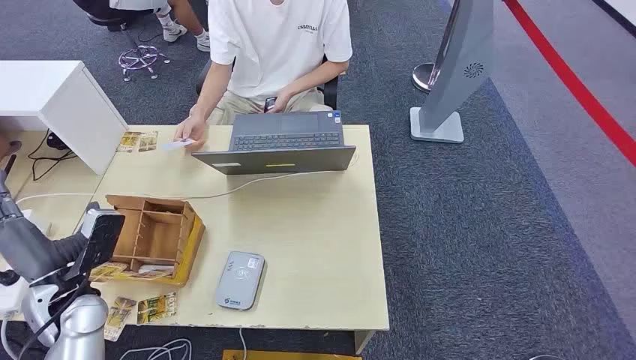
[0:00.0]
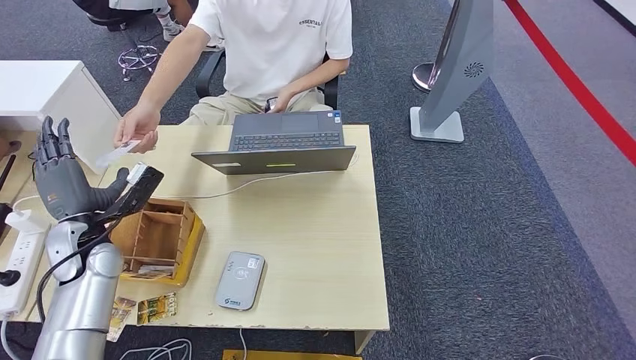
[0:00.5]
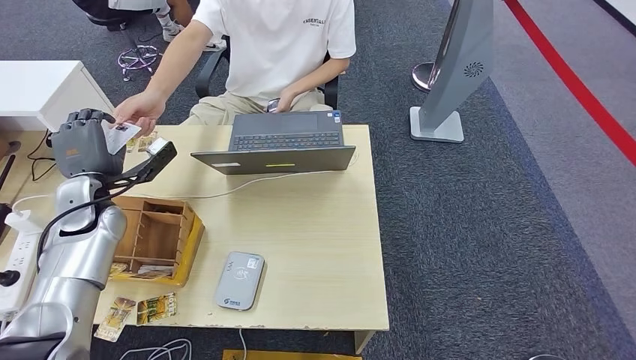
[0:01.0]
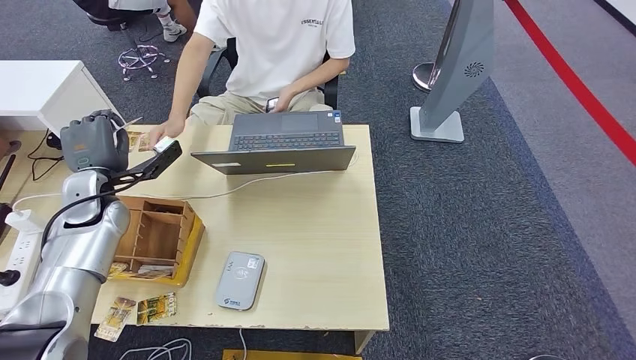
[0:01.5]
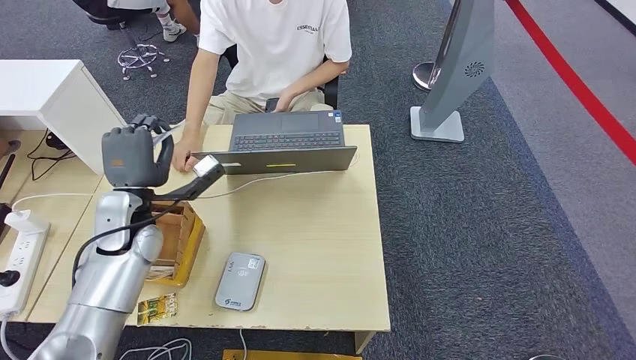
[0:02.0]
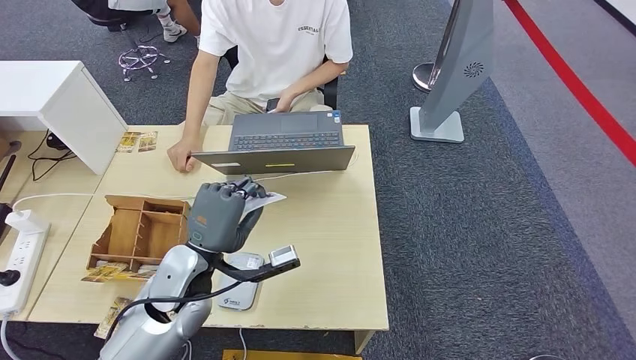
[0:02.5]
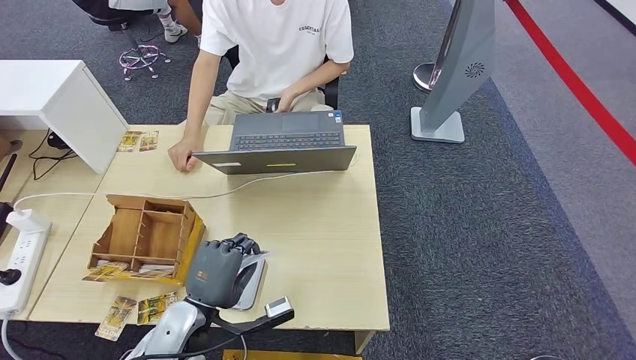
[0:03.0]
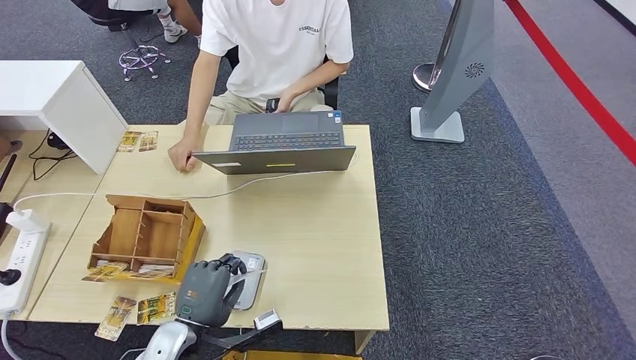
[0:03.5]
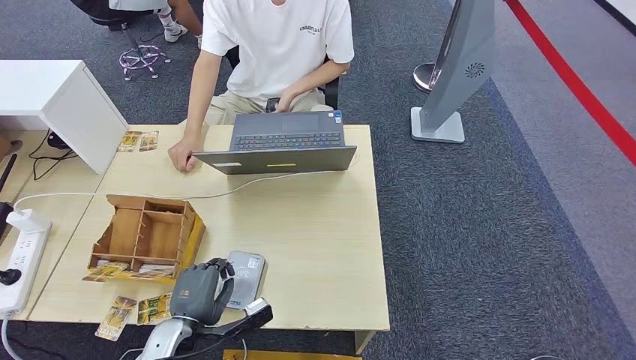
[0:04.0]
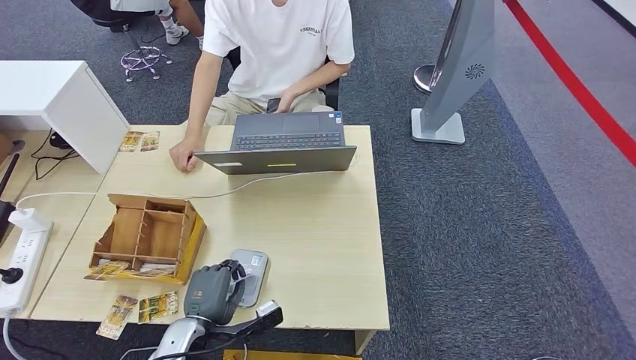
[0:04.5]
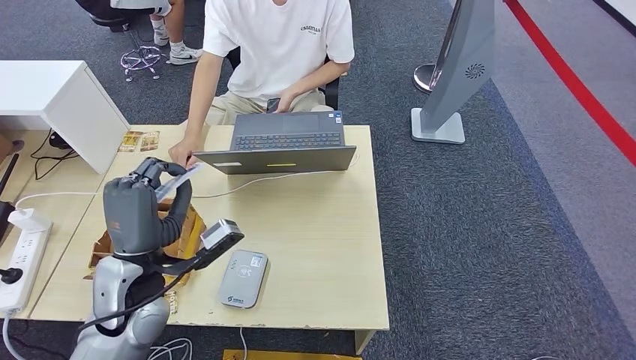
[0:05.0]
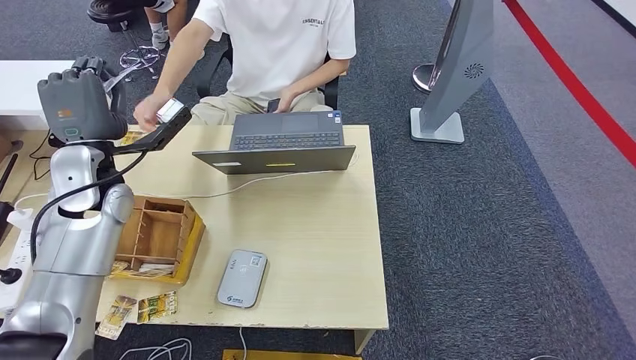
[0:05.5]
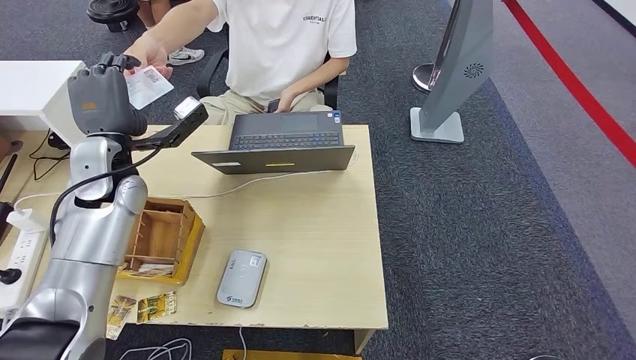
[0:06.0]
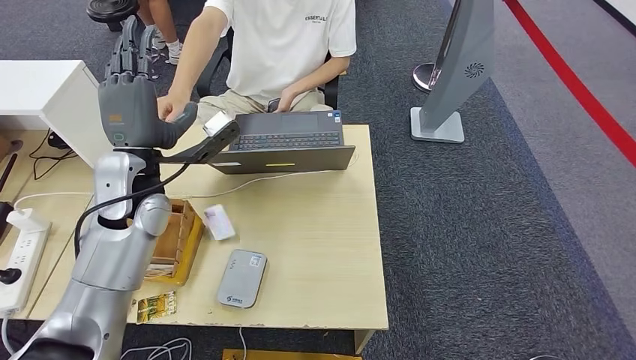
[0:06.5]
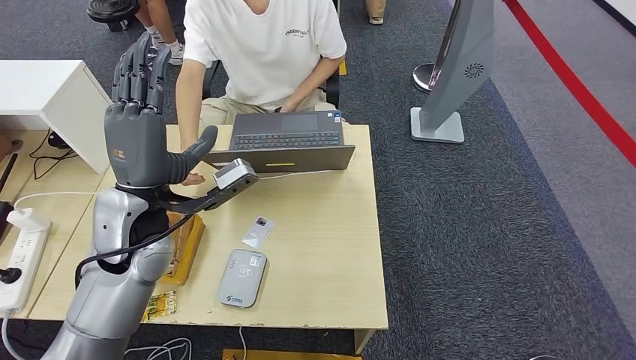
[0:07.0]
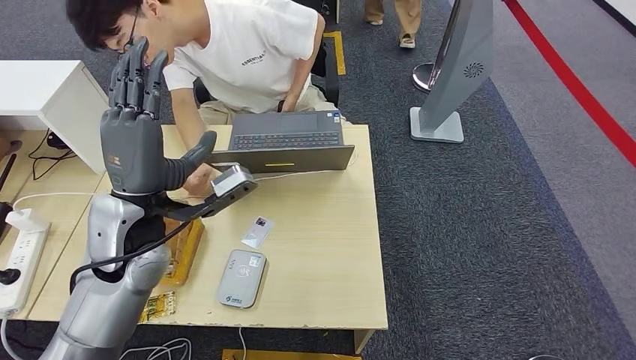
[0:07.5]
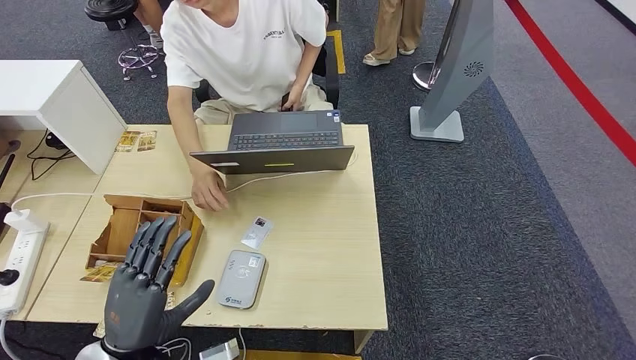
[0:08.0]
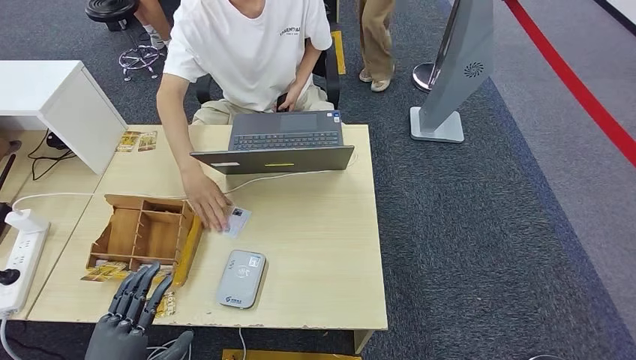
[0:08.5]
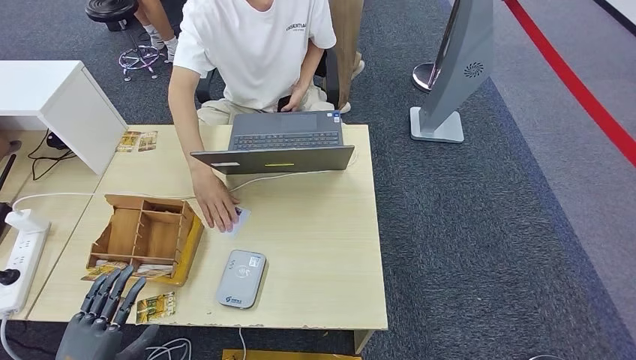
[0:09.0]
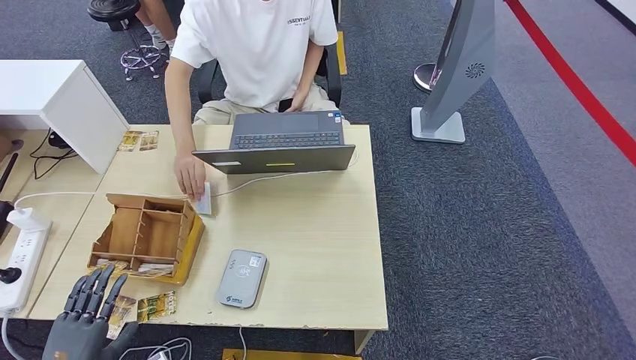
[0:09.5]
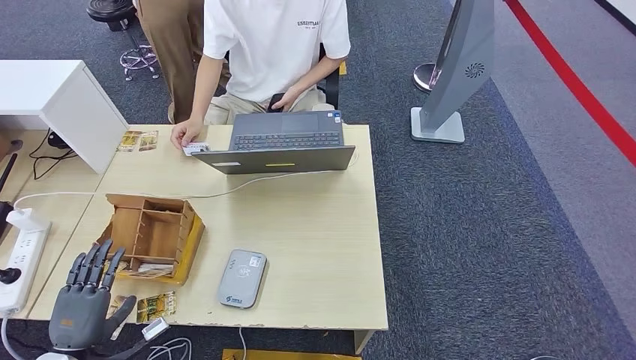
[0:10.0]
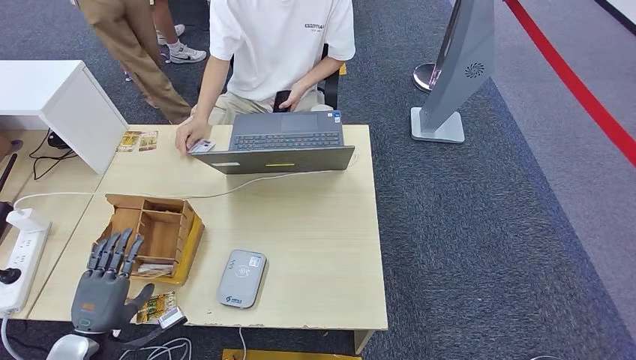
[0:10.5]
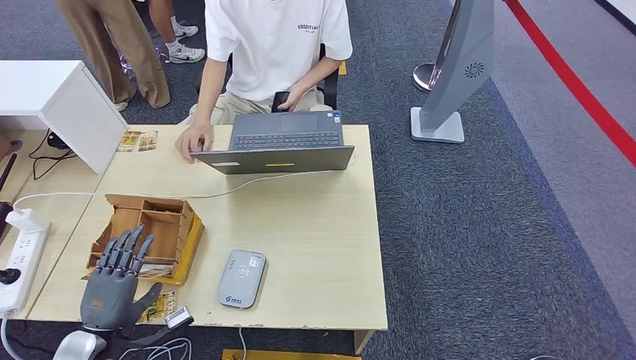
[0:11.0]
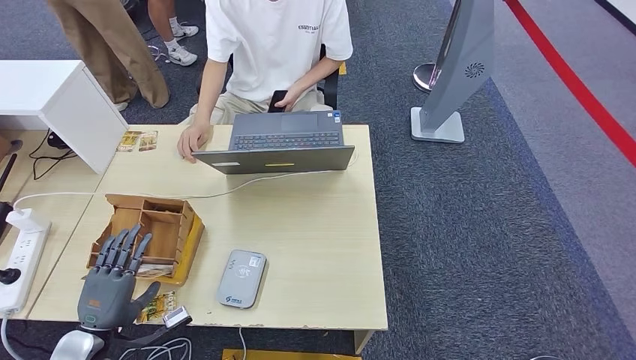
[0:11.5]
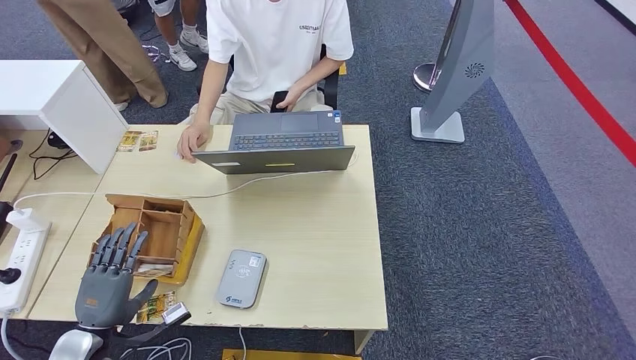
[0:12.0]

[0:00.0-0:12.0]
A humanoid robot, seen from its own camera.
Step, 0:00.0 to 0:01.5: Take the ID card from the person's hand.
Step, 0:02.0 to 0:04.5: Place the ID card on the card reader.
Step, 0:05.5 to 0:07.5: Hand the ID card to the person.
0:02.0 to 0:04.0: The left hand is displaced backward, downward and to the right by approximately 25 cm.
0:04.0 to 0:06.0: The left hand moves forward and upward, approximately 30 cm.
0:08.0 to 0:10.0: The left hand heads to the left and downward, covering about 20 cm.
0:10.0 to 0:12.0: The hands make only small movements.

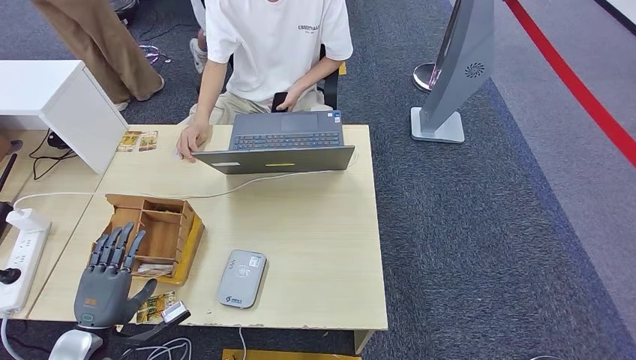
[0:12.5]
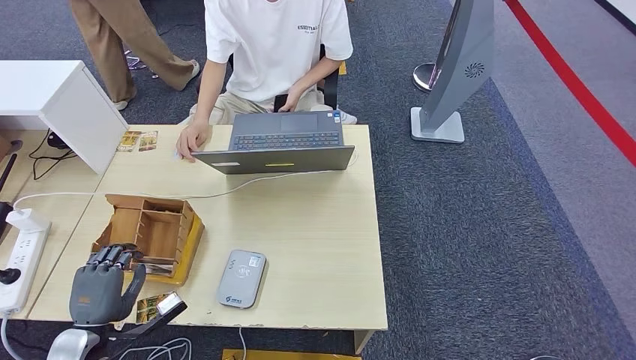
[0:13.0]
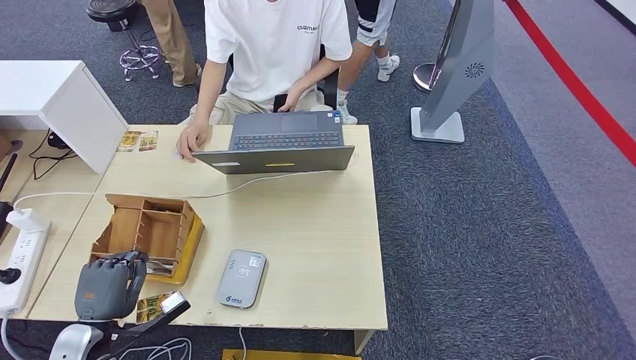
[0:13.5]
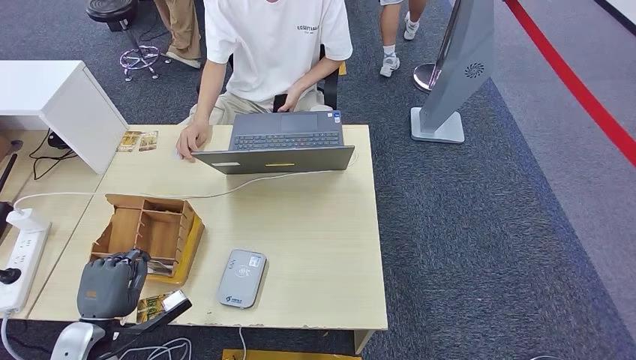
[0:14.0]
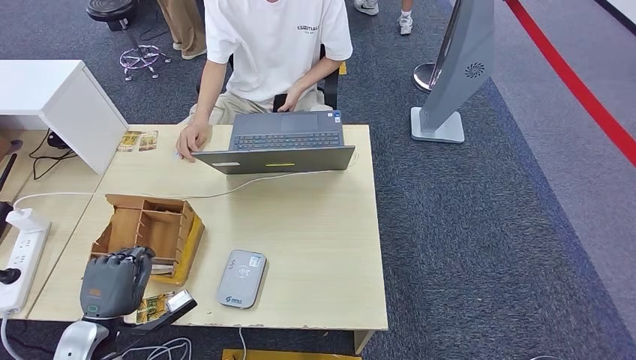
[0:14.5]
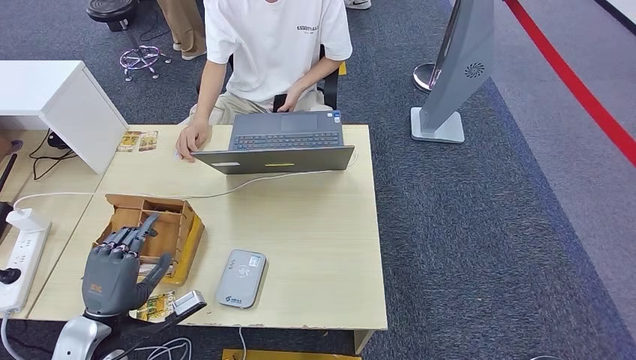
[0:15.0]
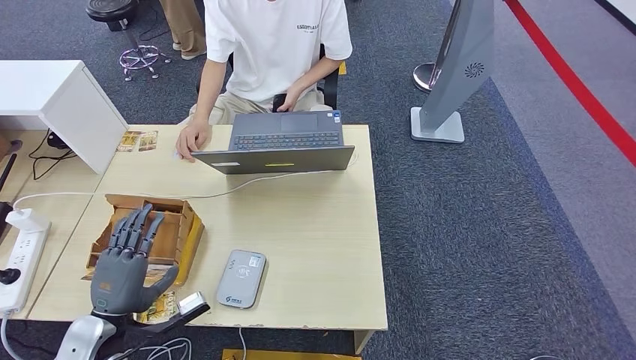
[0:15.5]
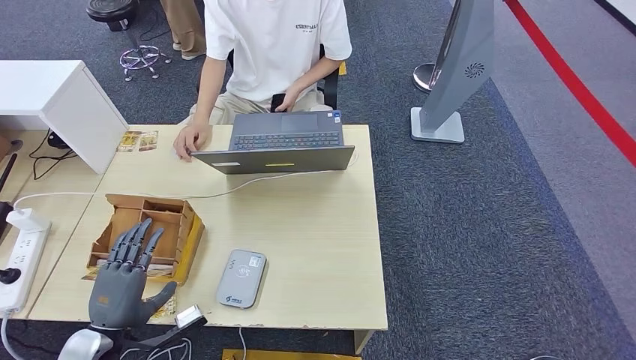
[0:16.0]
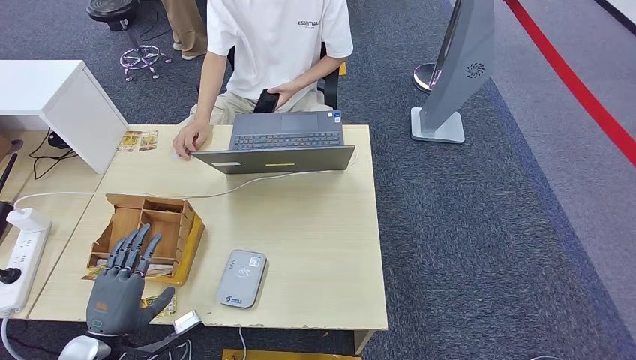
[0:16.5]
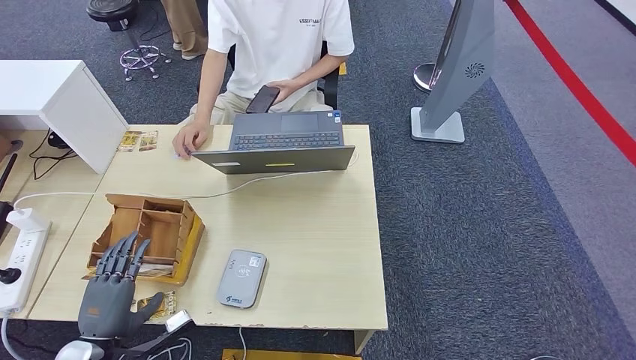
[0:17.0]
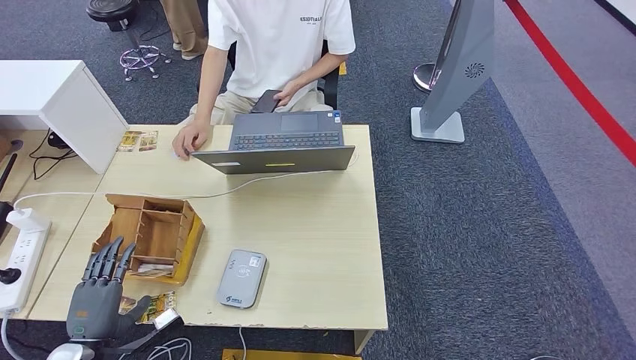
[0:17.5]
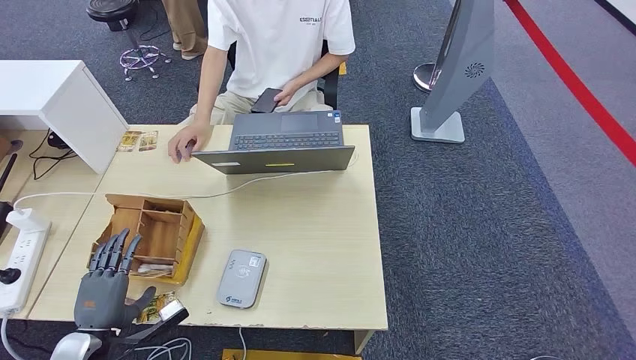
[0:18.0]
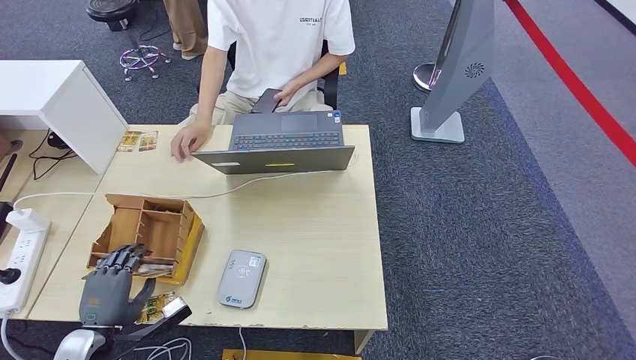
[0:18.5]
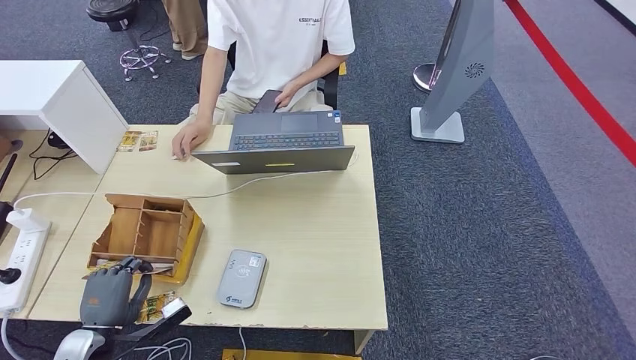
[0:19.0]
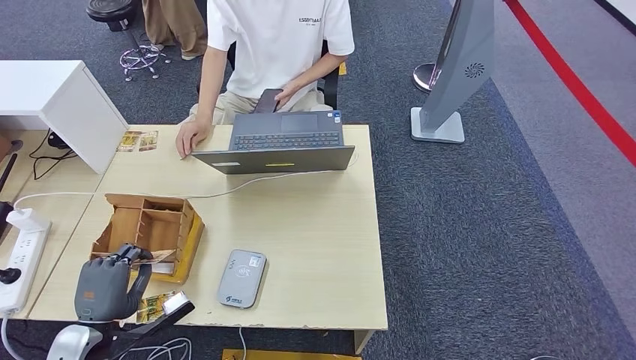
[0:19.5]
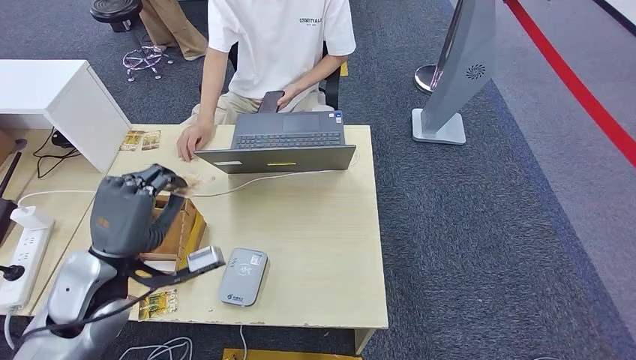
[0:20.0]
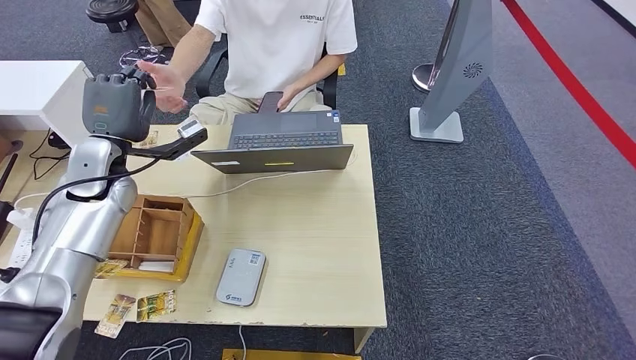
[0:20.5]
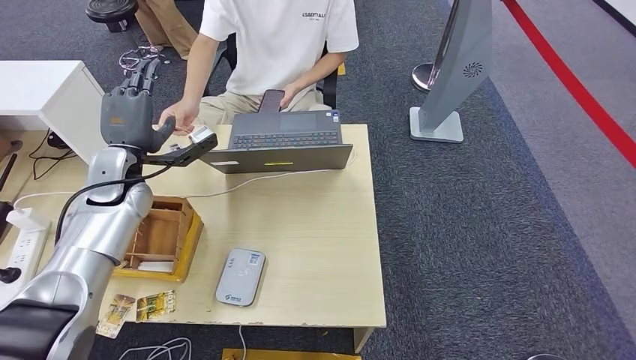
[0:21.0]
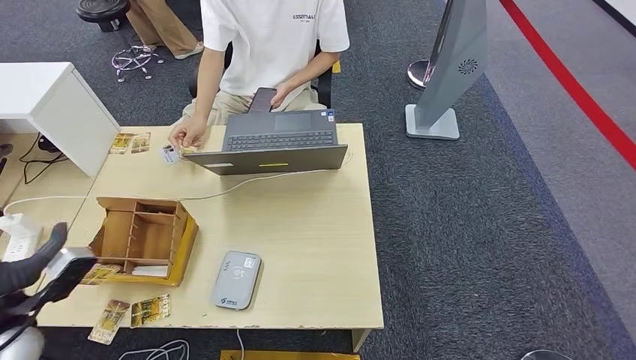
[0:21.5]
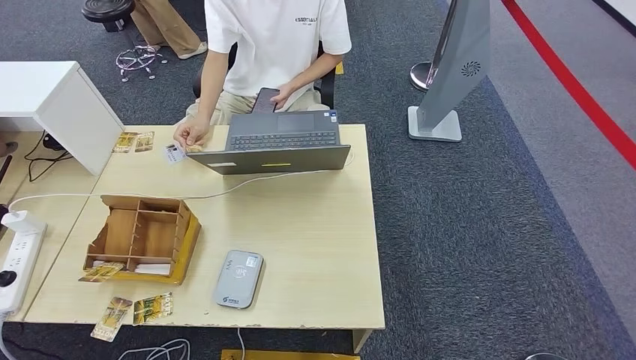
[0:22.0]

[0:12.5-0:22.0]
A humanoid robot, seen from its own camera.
Step, 0:12.5 to 0:20.0: Pick up the room key from the key card box.
Step, 0:20.5 to 0:22.0: Hand the room key to the person.
0:12.5 to 0:14.5: The hands move only a little.
0:14.5 to 0:16.5: There are only small adjustments of the hands.
0:16.5 to 0:18.0: The left hand changes place by some 5 cm.
0:18.0 to 0:20.0: The left hand goes approximately 20 cm upward, to the right and forward.
0:20.0 to 0:22.0: The left hand goes approximately 40 cm to the left, backward and downward.
